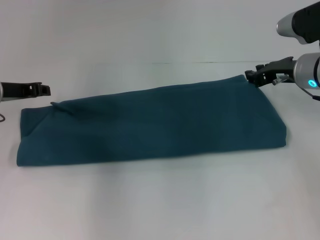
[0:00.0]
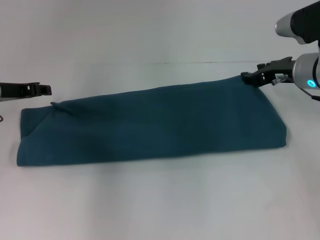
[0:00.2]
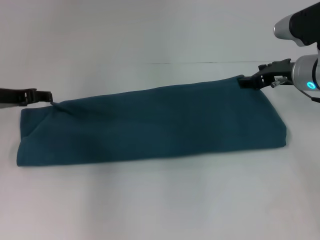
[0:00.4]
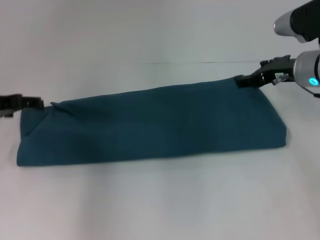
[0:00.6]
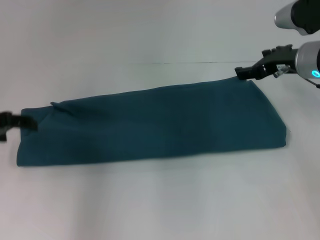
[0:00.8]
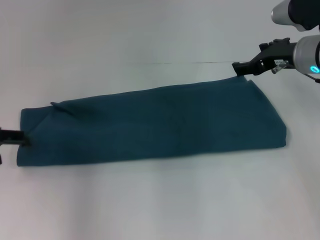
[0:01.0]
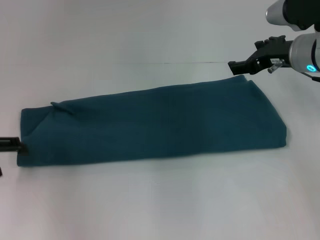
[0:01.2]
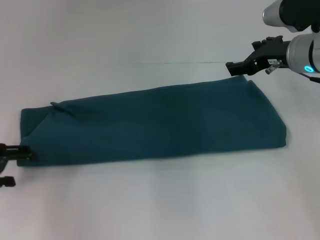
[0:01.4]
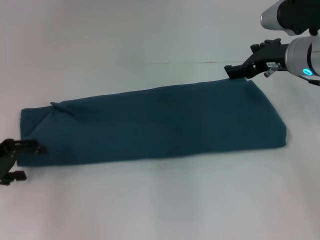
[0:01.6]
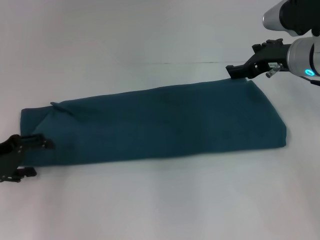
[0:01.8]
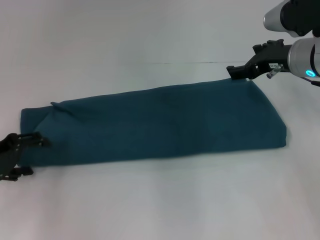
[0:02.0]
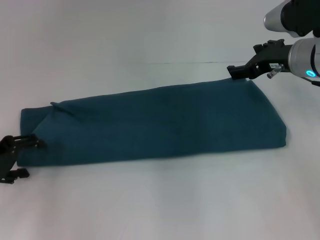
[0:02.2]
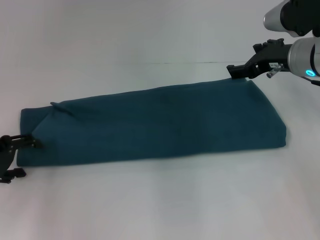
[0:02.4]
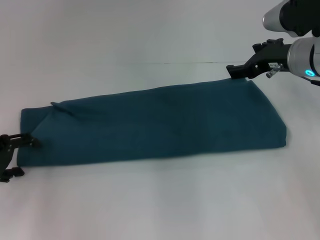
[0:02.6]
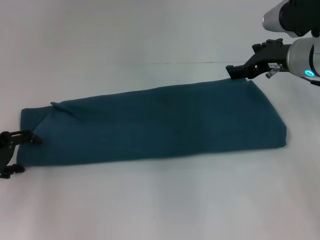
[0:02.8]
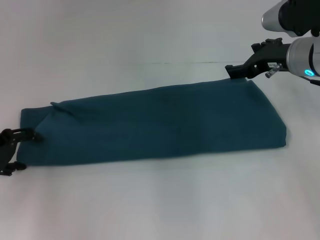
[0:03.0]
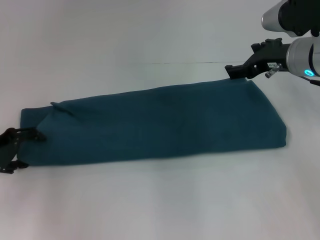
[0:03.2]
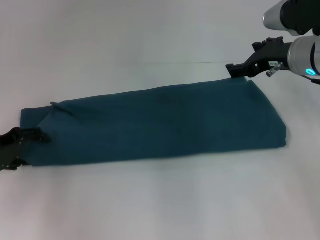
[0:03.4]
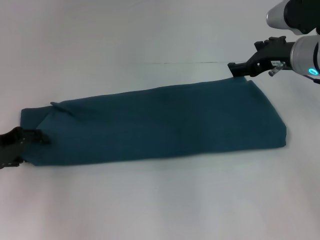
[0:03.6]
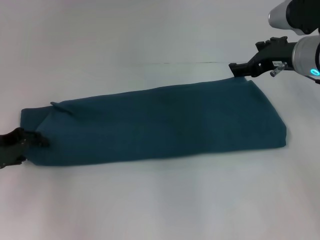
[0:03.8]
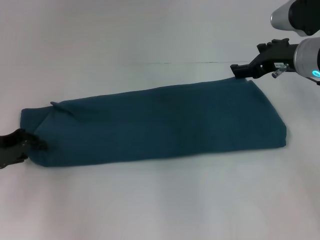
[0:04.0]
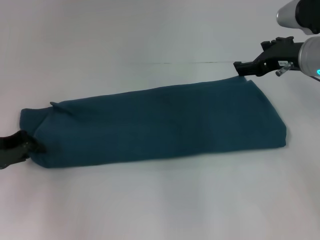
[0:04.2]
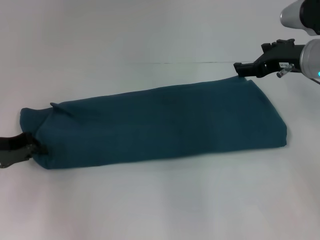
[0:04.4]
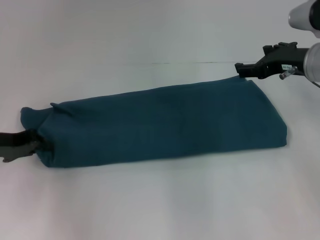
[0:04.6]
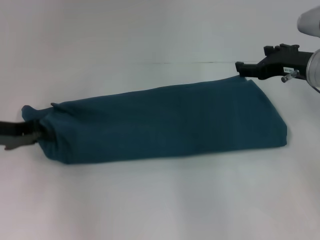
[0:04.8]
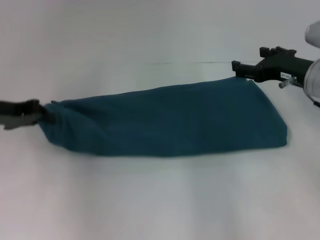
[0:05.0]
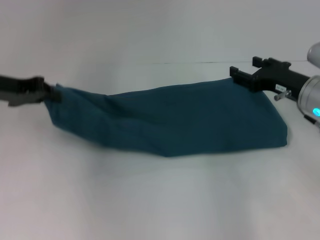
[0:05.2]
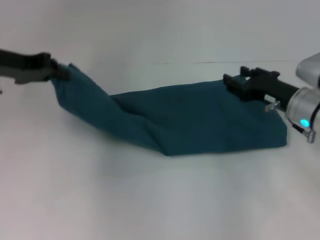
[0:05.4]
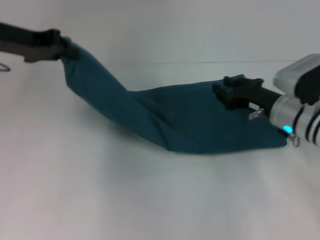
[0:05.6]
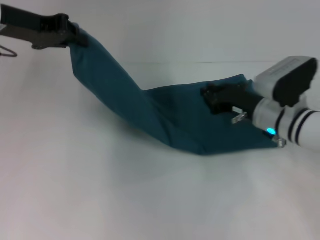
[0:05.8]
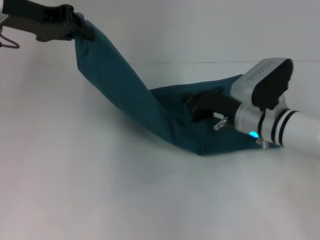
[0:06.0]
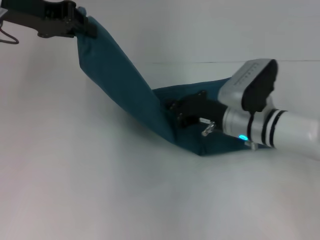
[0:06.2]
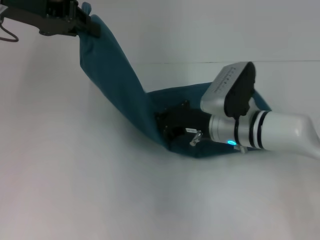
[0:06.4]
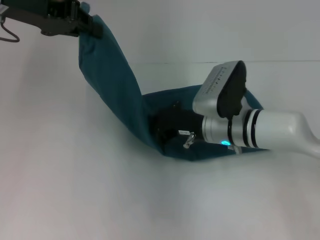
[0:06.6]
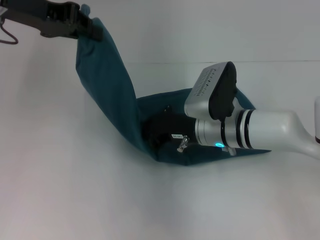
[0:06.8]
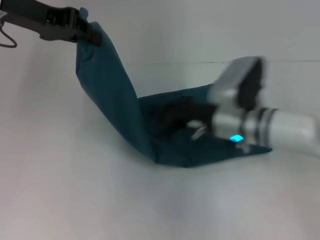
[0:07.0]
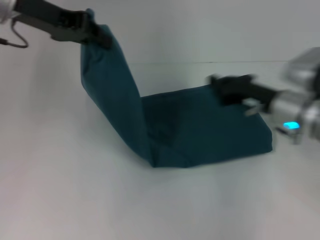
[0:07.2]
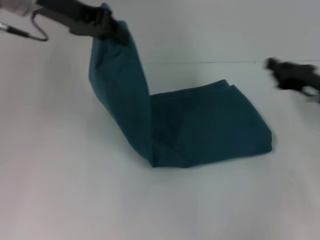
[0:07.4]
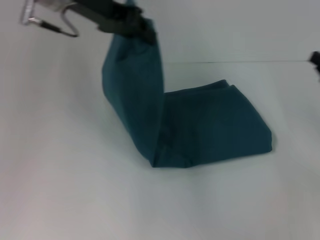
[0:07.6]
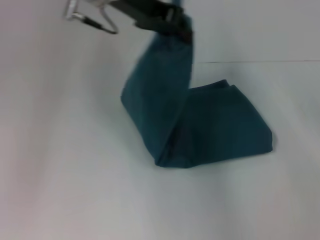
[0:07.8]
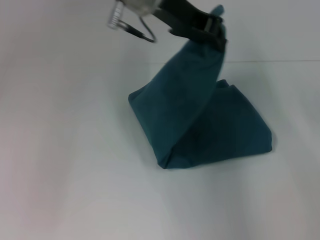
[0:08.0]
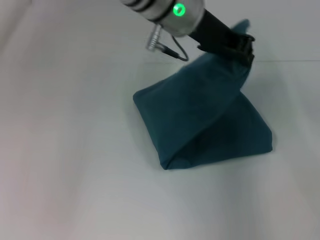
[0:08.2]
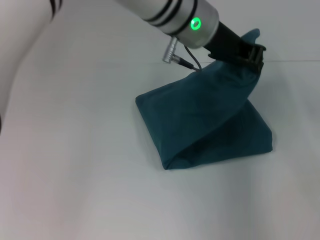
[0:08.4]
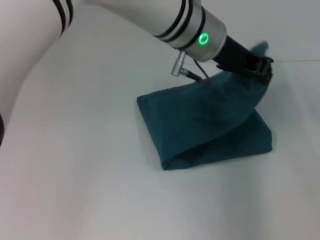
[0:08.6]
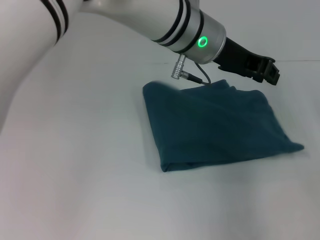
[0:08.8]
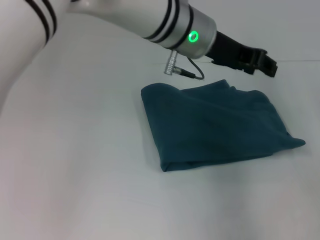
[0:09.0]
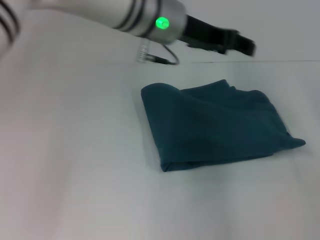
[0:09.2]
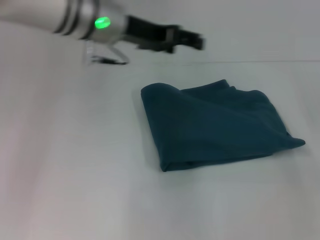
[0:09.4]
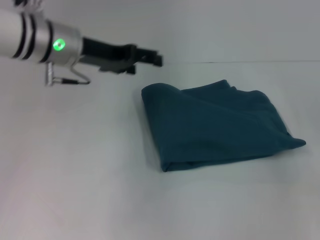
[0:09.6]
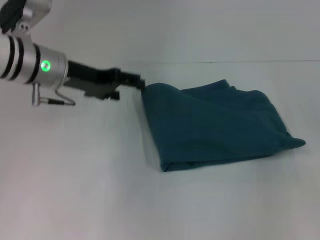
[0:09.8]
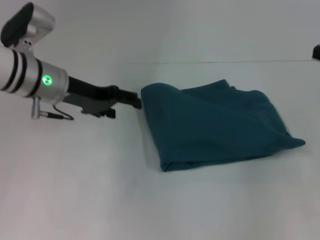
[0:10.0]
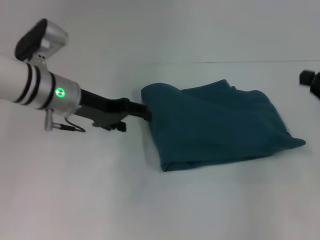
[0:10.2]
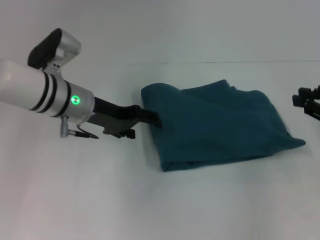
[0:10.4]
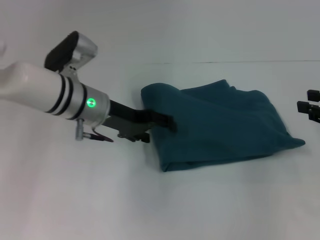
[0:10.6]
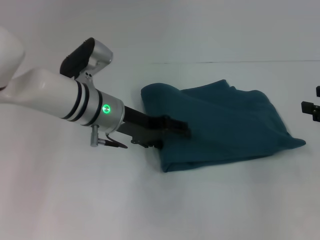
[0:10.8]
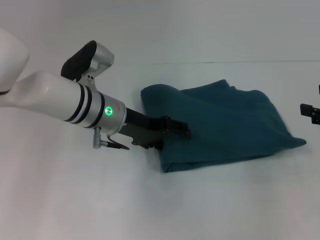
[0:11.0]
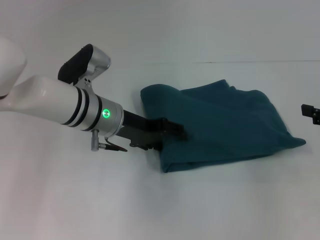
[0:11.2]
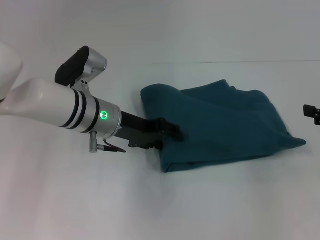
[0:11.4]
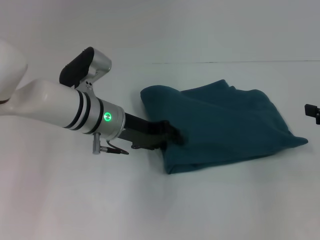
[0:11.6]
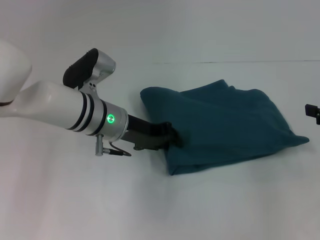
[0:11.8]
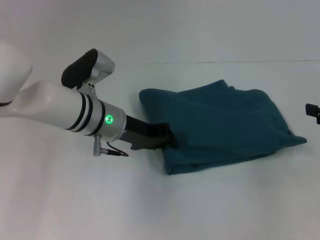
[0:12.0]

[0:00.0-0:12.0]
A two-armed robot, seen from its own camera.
Step, 0:00.2 to 0:07.0: Press the middle of the clothes with your right hand.
Step, 0:07.2 to 0:08.6: Fold the clothes to the left.
0:00.0 to 0:01.6: The right gripper opens up. Meanwhile the left gripper heads backward, covering approximately 10 cm, and opens.
0:01.6 to 0:03.0: The grippers stay close to where they were, moving slightly.
0:03.0 to 0:04.4: The left gripper closes.
0:04.4 to 0:06.0: The right gripper moves downward and to the left, about 15 cm, and closes, while the left gripper moves upward, forward and to the right, roughly 20 cm.
0:06.0 to 0:07.6: The right gripper is displaced to the right by some 20 cm. Meanwhile the left gripper moves to the right, roughly 10 cm.
0:07.6 to 0:09.0: The right gripper shifts approximately 5 cm to the right; the left gripper heads to the right, covering about 15 cm.
0:09.0 to 0:10.4: The left gripper shifts about 20 cm to the left and downward, and opens; the right gripper shifts approximately 5 cm to the left.
0:10.4 to 0:12.0: The left gripper changes place by about 5 cm, and closes. The right gripper opens its fingers.

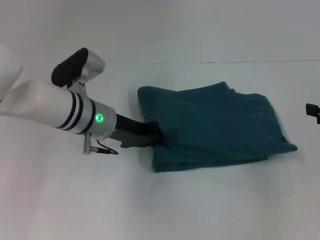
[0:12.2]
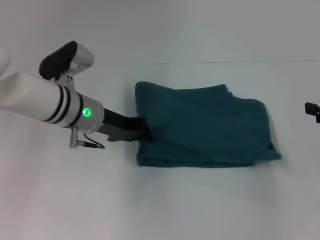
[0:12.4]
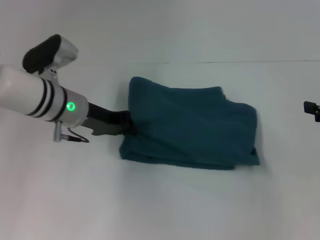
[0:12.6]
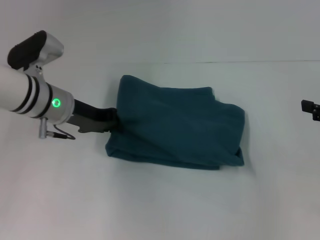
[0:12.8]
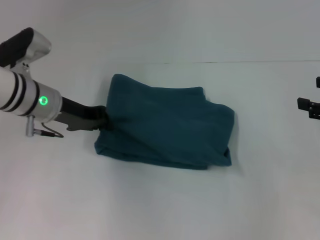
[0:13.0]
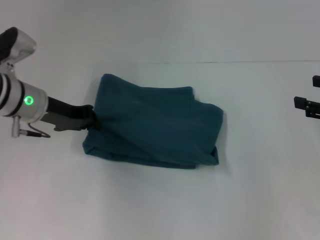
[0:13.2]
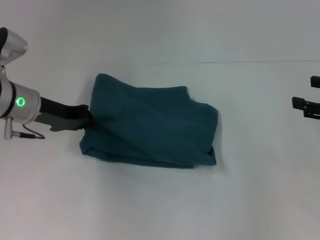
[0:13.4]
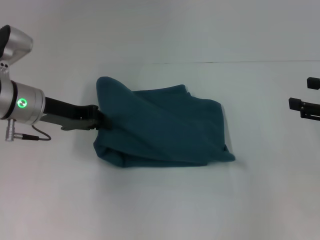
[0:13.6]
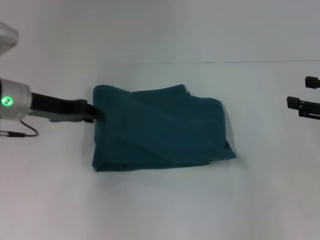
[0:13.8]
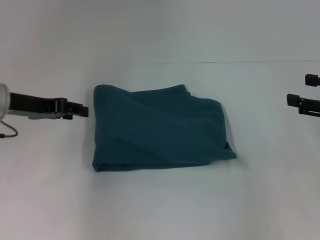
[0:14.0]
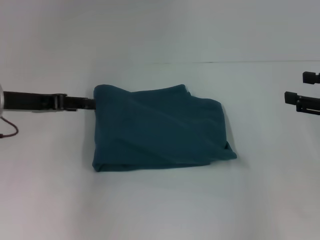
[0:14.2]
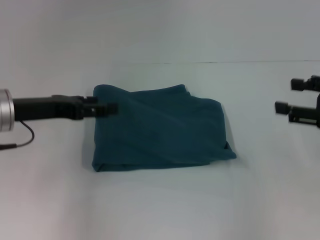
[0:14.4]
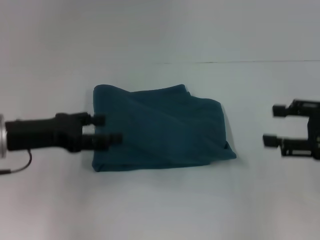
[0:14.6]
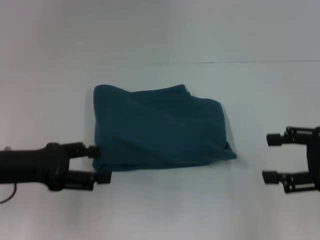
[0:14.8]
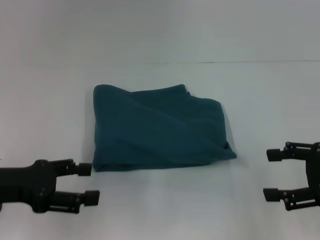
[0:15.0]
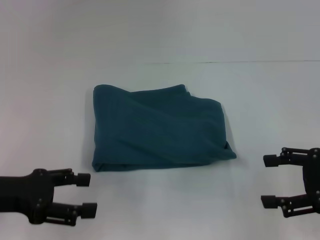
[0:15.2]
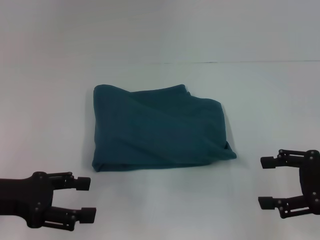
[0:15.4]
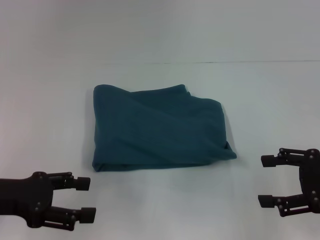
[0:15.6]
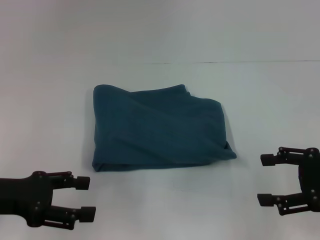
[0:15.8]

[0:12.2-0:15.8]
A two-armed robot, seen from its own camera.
0:12.2 to 0:14.0: The left gripper travels to the left by about 15 cm.
0:14.0 to 0:15.8: The left gripper heads backward, covering about 10 cm, and opens up. The right gripper shifts by roughly 5 cm.

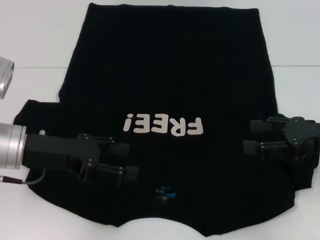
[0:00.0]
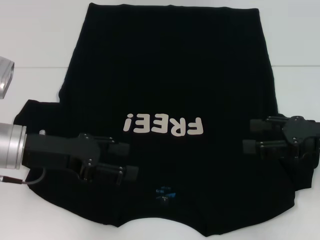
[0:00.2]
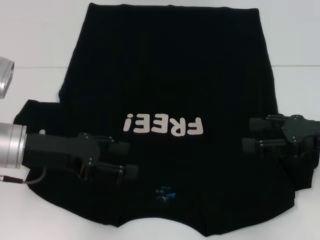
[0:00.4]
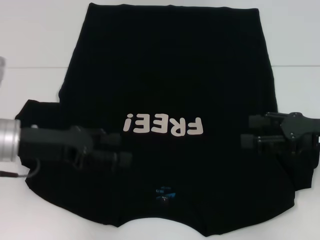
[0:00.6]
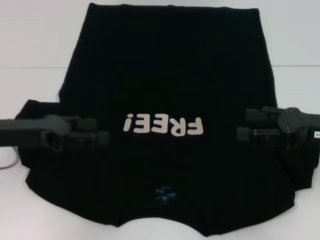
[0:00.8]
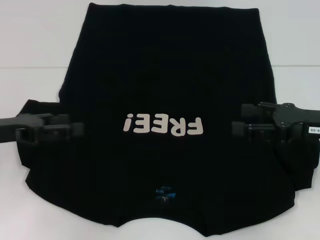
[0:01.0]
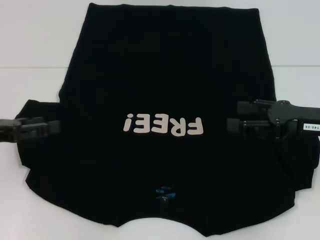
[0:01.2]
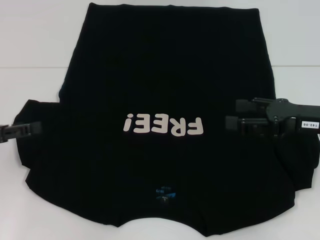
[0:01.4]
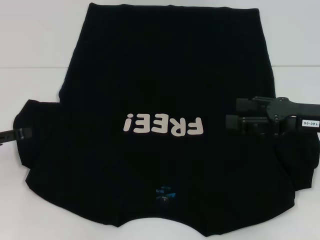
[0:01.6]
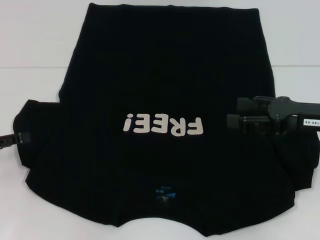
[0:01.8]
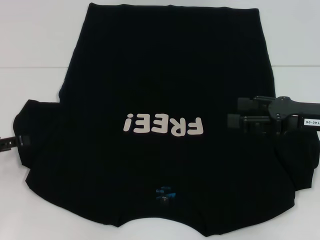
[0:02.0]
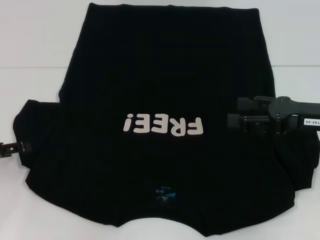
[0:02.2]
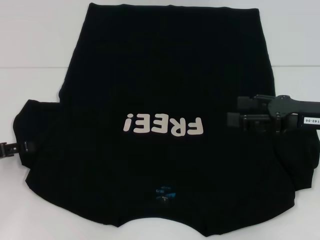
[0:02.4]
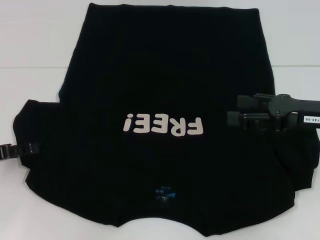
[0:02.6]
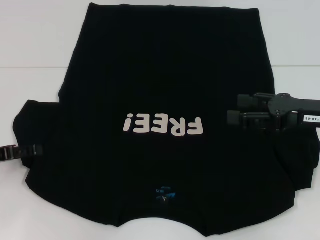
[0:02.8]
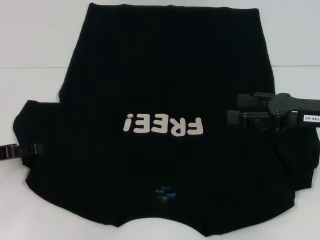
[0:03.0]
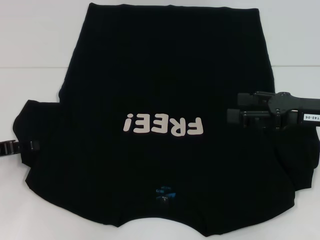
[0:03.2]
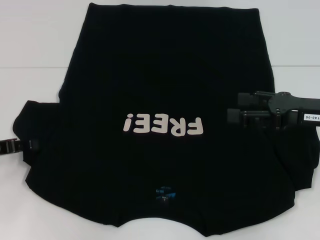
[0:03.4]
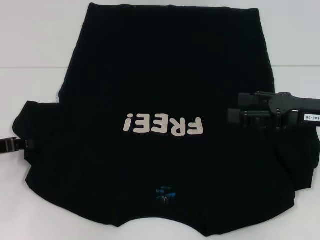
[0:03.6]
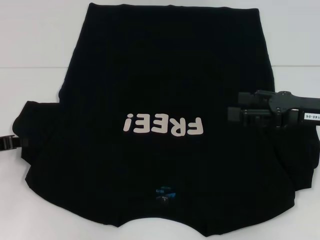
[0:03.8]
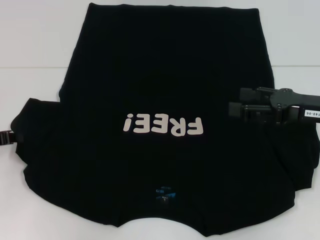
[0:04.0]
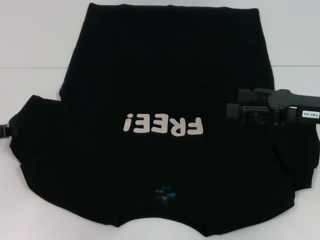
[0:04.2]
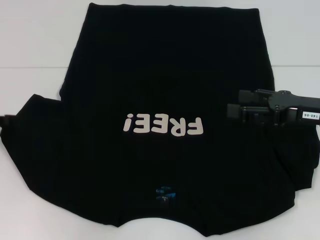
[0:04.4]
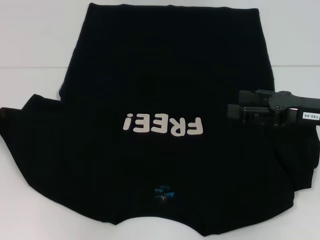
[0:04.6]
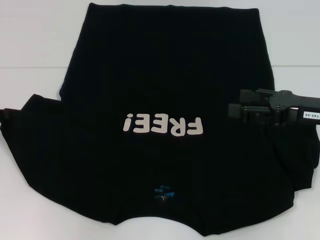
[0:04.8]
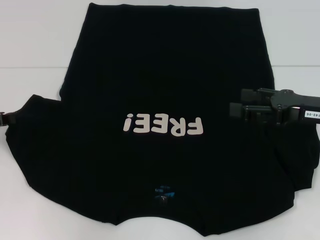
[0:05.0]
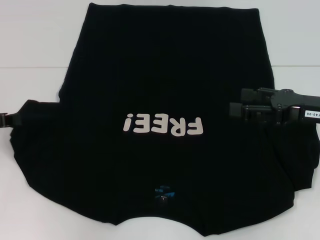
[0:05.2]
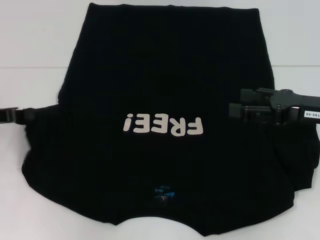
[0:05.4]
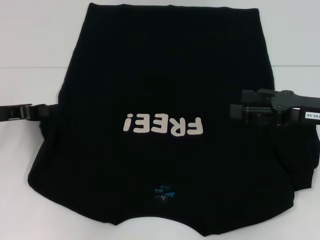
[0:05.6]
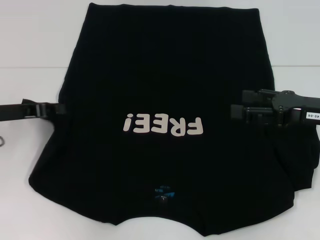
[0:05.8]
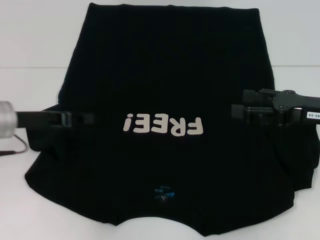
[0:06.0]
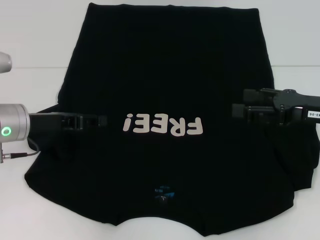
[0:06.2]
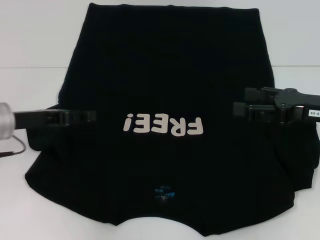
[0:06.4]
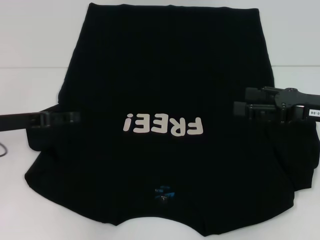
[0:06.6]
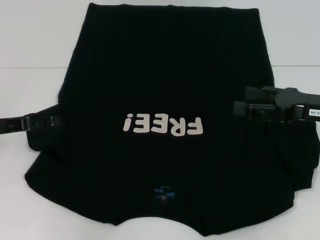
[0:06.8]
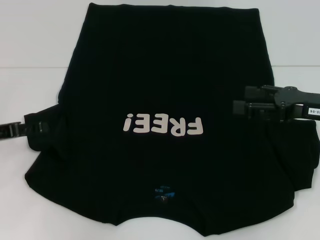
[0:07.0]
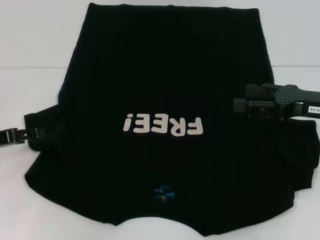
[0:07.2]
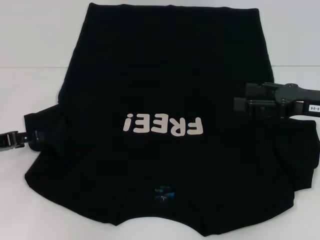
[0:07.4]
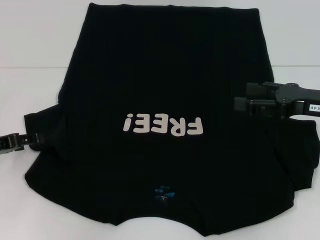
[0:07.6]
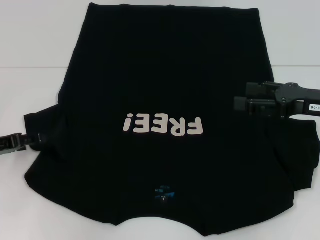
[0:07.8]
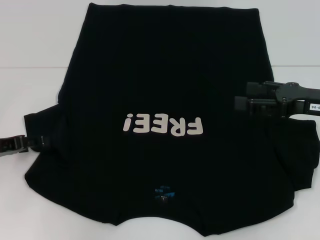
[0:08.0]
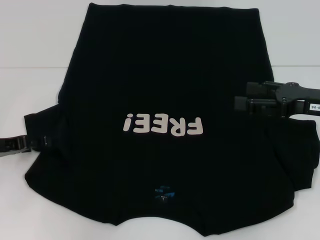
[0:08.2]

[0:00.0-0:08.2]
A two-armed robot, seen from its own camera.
0:00.0 to 0:01.6: The left gripper is displaced to the left by roughly 15 cm.
0:01.6 to 0:03.2: The grippers make only small movements.
0:03.2 to 0:05.0: The left gripper closes up.
0:05.0 to 0:06.6: The left gripper goes about 5 cm to the right, and opens up.
0:06.6 to 0:08.2: The left gripper shifts by roughly 5 cm.
